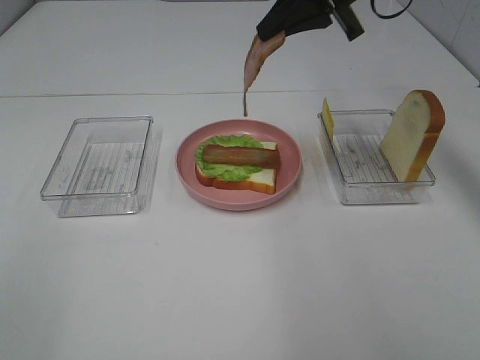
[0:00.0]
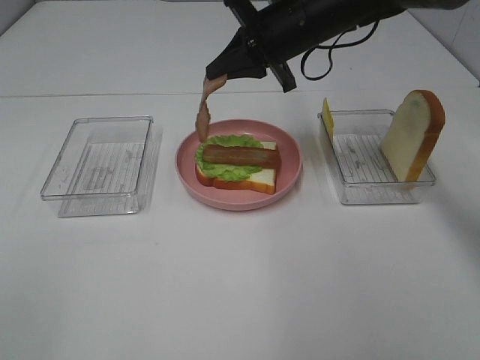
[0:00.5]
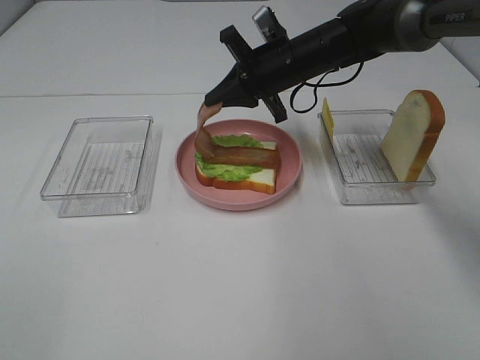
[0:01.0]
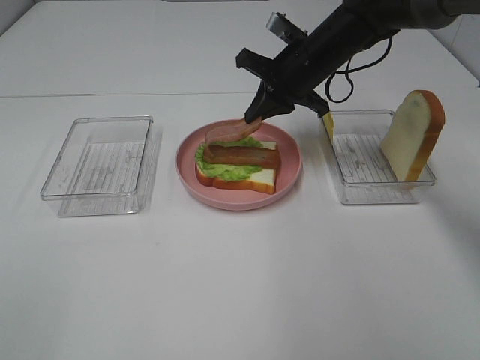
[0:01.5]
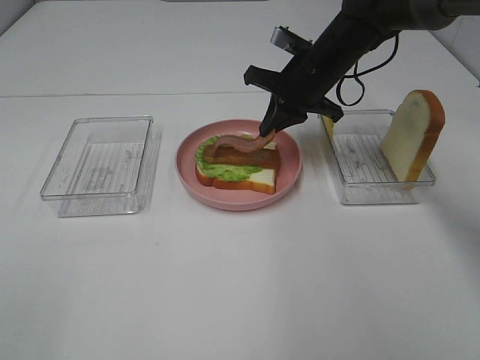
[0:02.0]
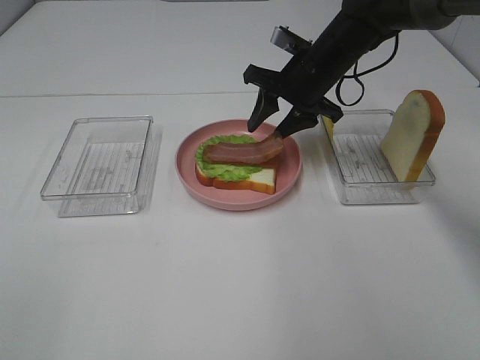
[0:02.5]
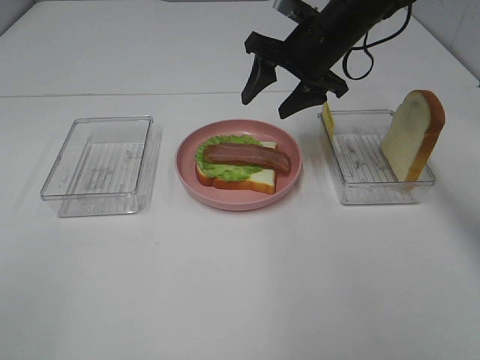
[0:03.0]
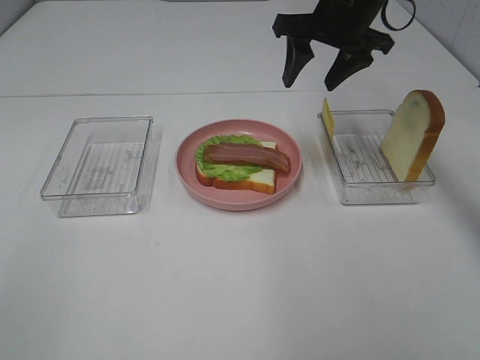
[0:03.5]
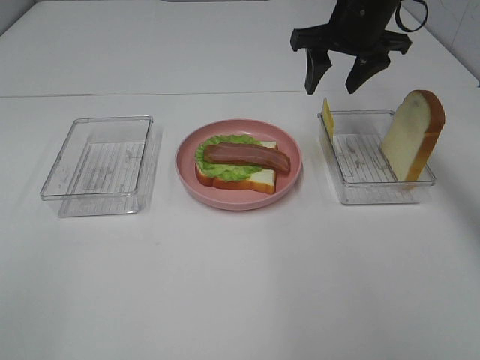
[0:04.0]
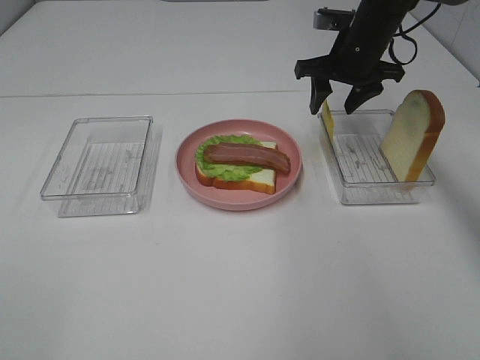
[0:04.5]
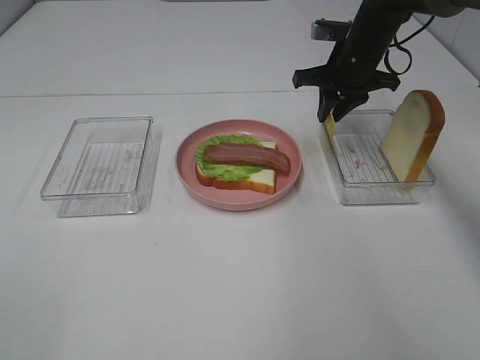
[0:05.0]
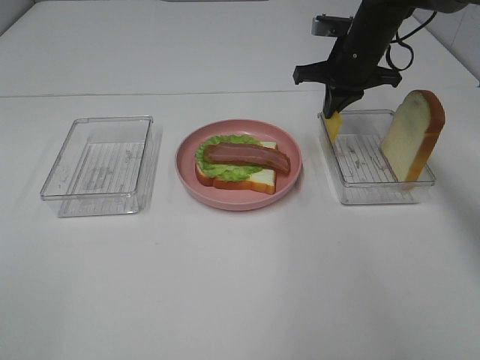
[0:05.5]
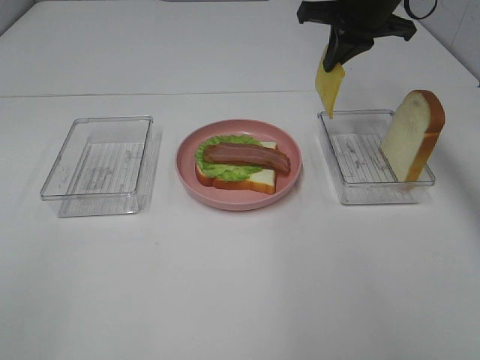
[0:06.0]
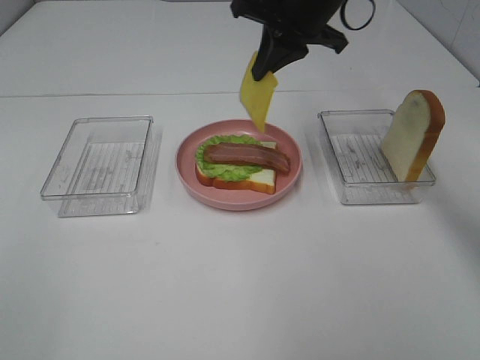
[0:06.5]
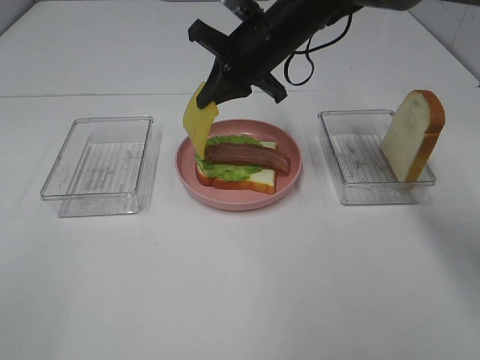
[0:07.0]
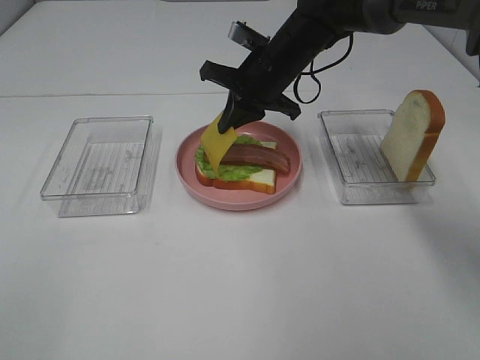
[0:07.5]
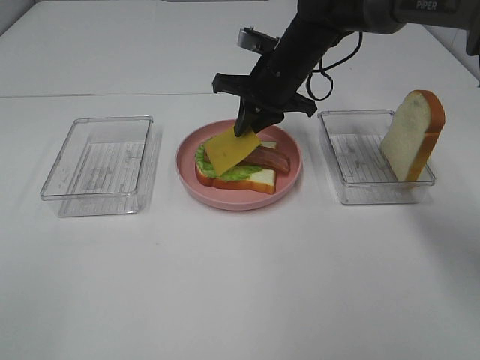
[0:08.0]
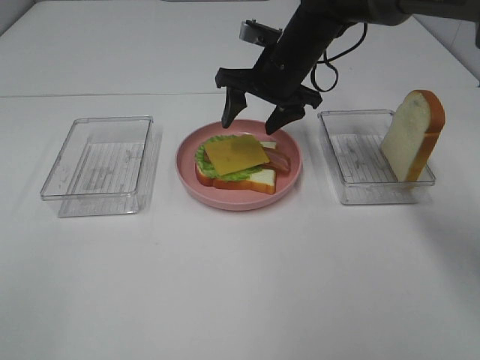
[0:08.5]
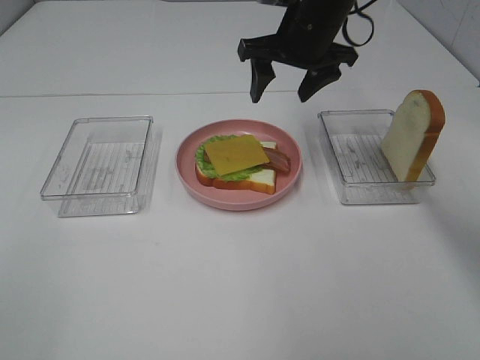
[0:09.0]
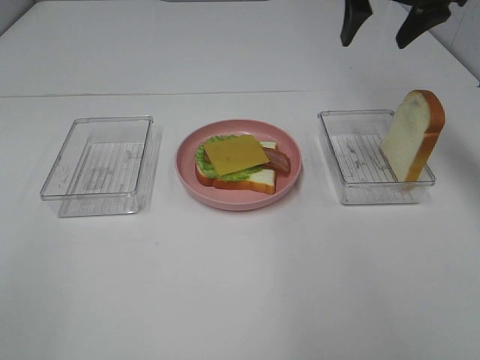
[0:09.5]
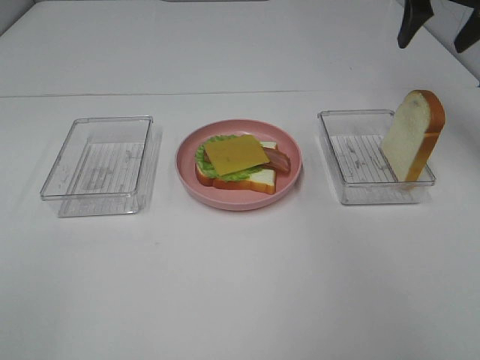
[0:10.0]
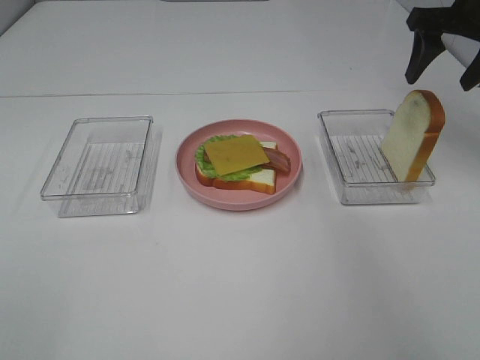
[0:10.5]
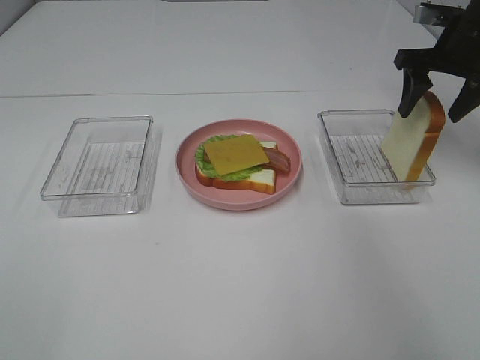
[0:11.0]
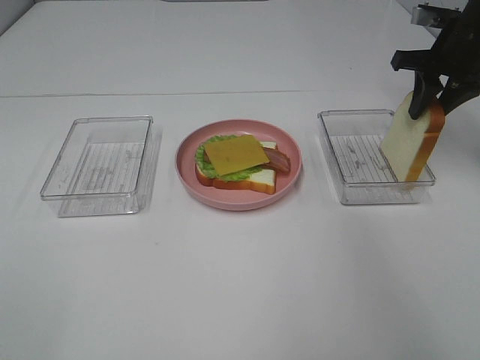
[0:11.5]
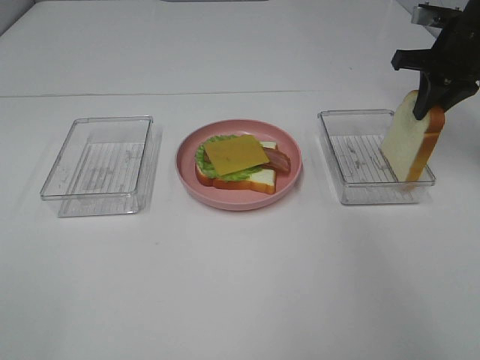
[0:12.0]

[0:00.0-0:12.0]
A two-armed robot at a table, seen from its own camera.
Task of the whole recording: Make sandwiches.
Step, 0:00.0 to 0:02.5: Right hand:place bacon on bacon.
Step, 0:03.0 to 0:05.5: Right hand:grab the cheese slice.
Step, 0:06.0 to 0:08.5: Right hand:place the cheese slice on top of the bacon.
Step, 0:09.0 to 0:11.5: Right hand:grab the bread slice.
0:00.0 to 0:02.0: The right gripper travels downward by about 15 cm.
0:02.0 to 0:04.0: The right gripper moves upward, roughly 5 cm, and opens up.
0:04.0 to 0:06.0: The right gripper closes.
0:06.0 to 0:08.0: The right gripper heads downward and to the left, covering approximately 15 cm.
0:08.0 to 0:10.0: The right gripper is displaced to the right and upward by roughly 25 cm, and opens its fingers.
0:10.0 to 0:12.0: The right gripper is displaced downward by roughly 10 cm, and closes.

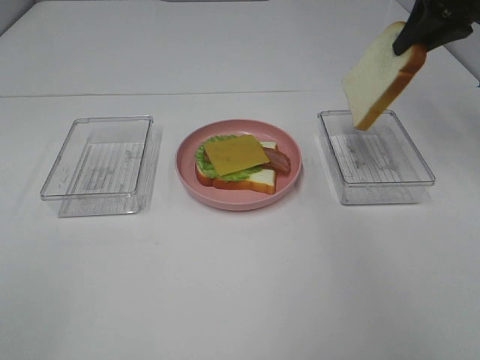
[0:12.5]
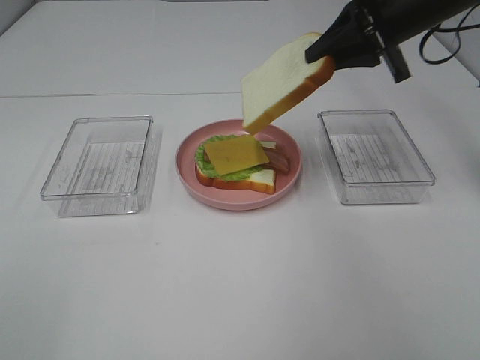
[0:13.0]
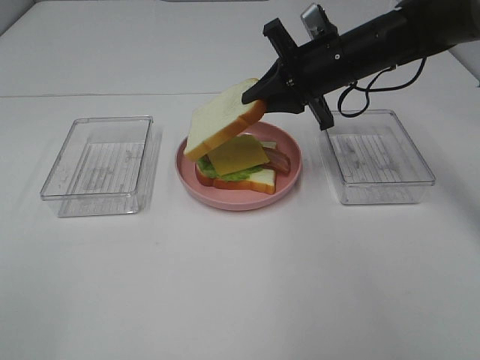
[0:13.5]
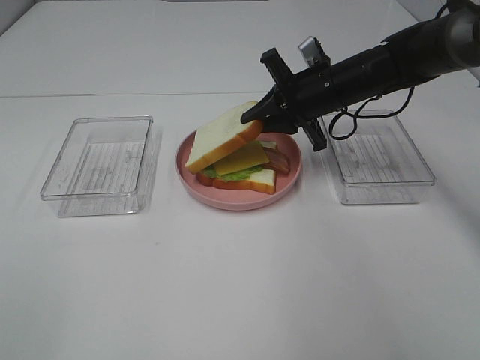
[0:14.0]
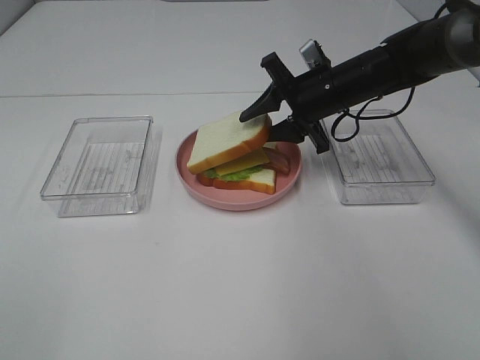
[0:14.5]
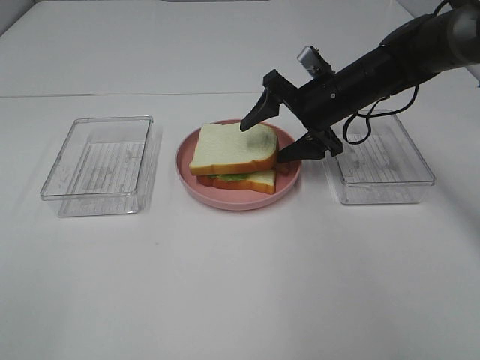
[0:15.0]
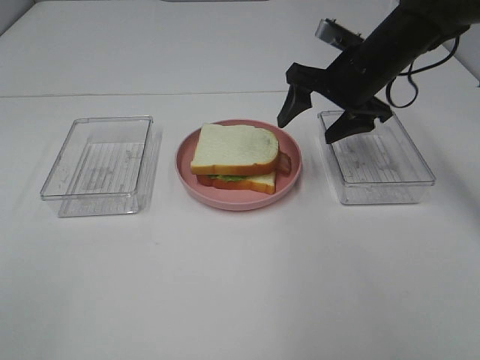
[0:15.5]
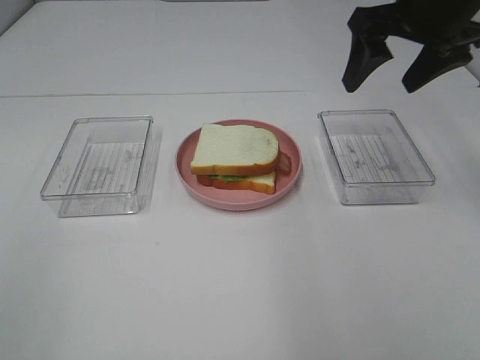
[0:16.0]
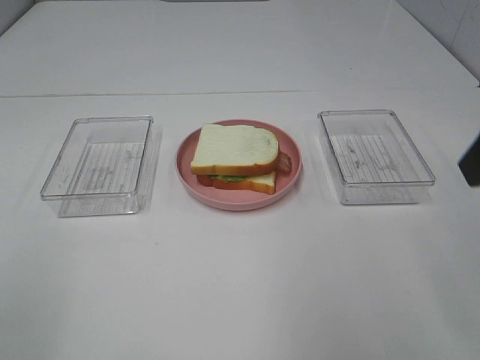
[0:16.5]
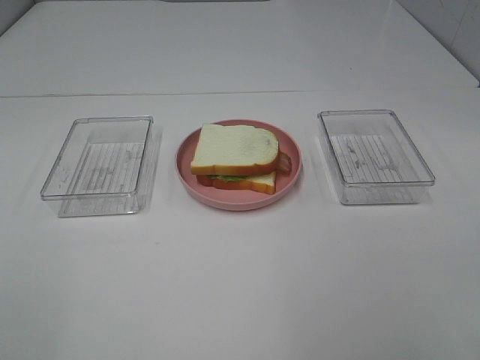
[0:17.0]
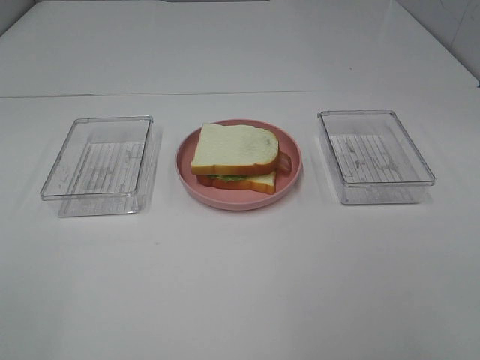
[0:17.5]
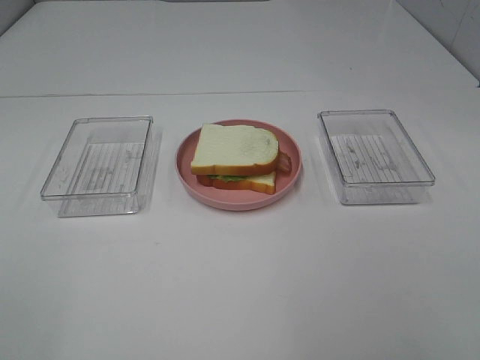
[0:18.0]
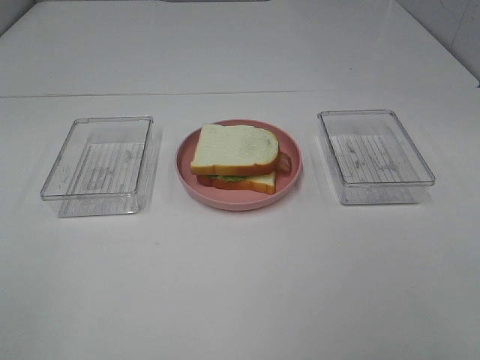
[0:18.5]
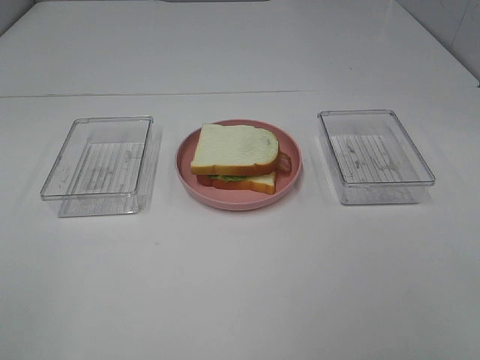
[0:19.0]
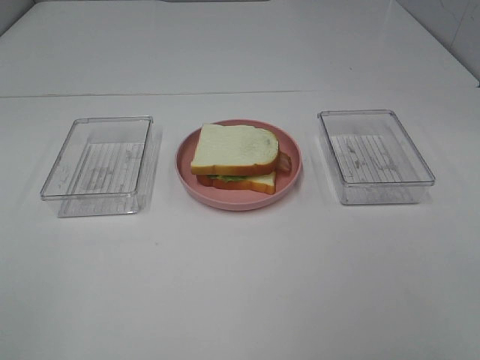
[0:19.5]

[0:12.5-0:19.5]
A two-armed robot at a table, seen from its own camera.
Task of the whole recording: Make sandwiches.
Step, 0:12.5 to 0:15.0: Right hand:place the bread slice on the cheese slice.
0:12.5 to 0:14.5: The right gripper moves downward and to the left, some 20 cm, and opens.
0:14.5 to 0:16.0: The right gripper travels upward and backward by roughly 20 cm, and opens its fingers.
0:16.0 to 0:17.5: The right gripper goes about 35 cm backward.

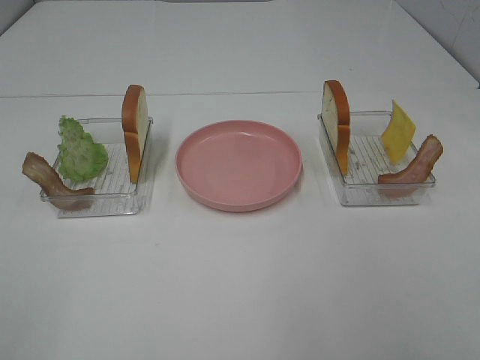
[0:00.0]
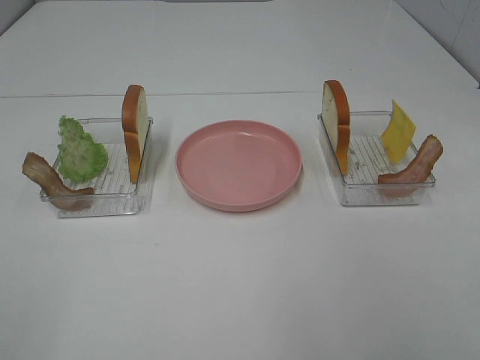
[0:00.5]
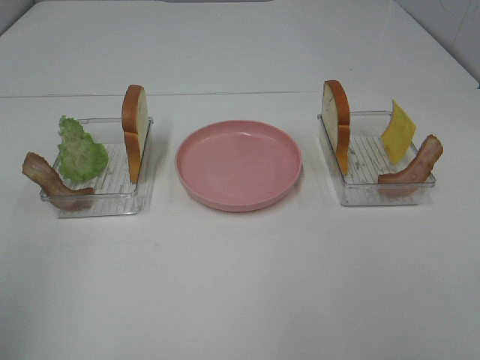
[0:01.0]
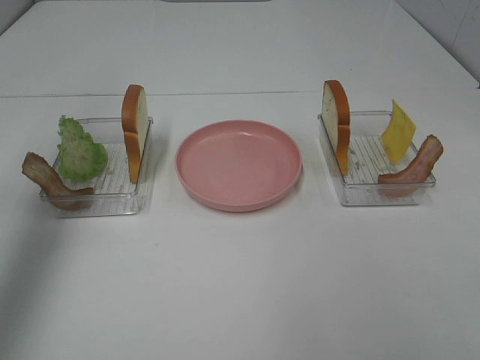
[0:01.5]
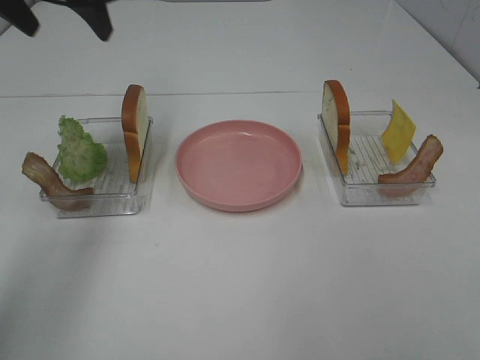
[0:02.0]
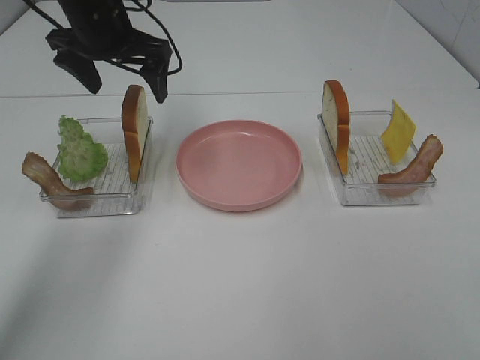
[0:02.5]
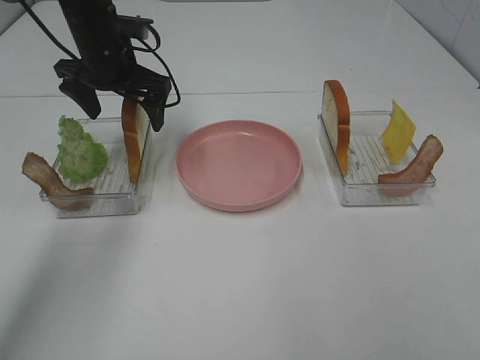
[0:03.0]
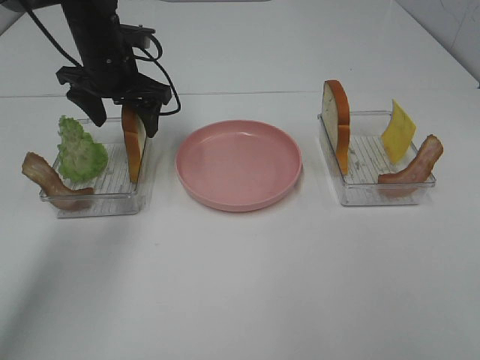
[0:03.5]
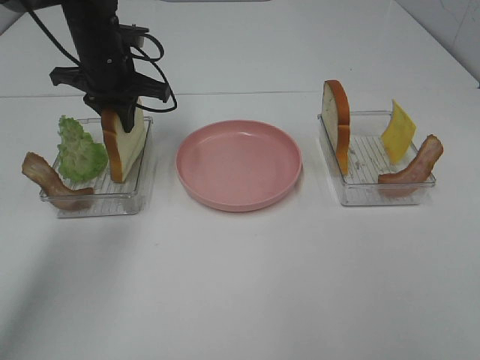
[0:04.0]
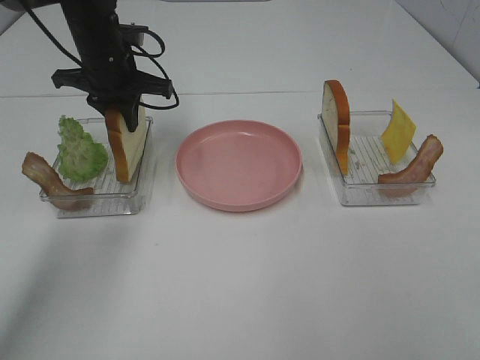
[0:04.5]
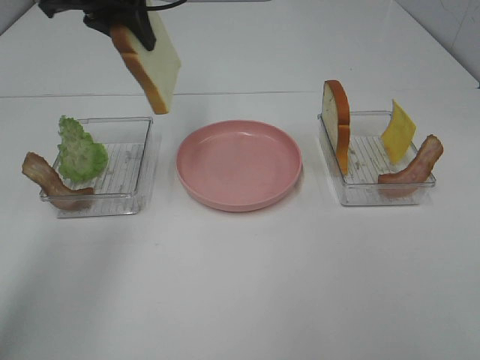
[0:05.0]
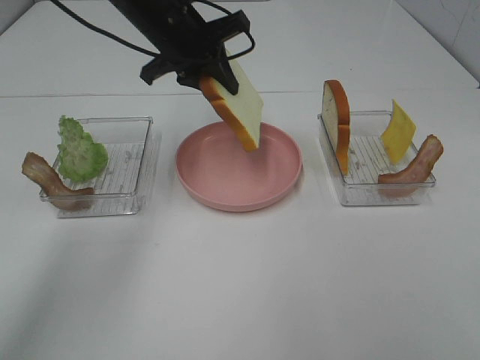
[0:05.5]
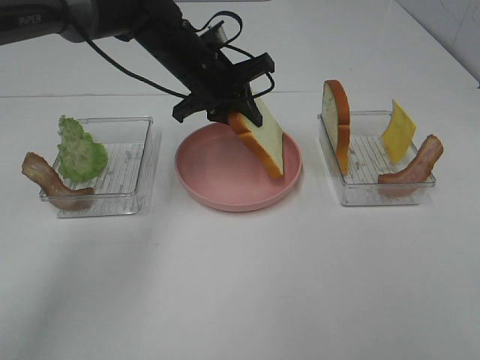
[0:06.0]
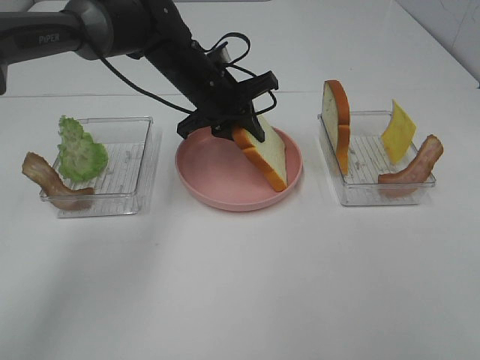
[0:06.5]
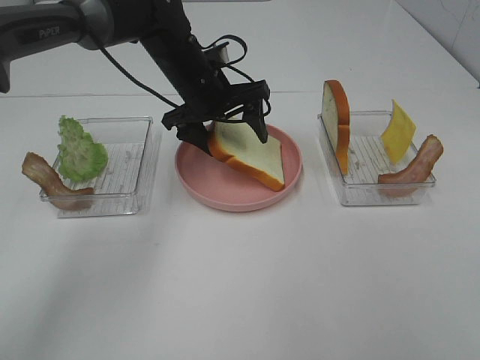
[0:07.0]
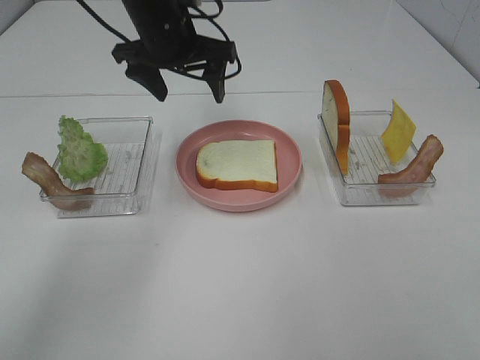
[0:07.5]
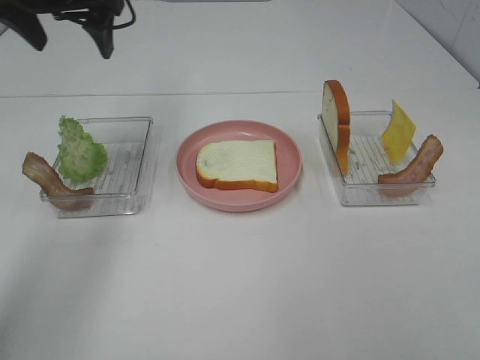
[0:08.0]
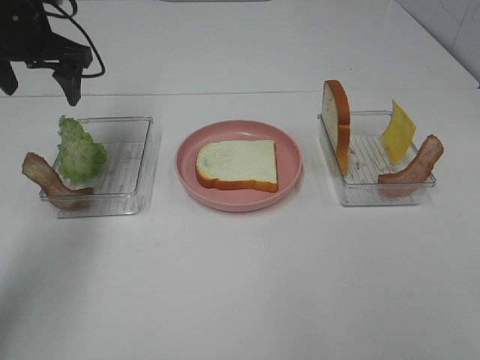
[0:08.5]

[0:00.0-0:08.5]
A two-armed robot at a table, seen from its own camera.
Task of the whole recording: Make sandwiches.
Step, 0:00.0 to 0:03.5: Left hand:grab the bread slice.
Step, 0:04.0 to 0:07.0: Left hand:place the bread slice on the plate.
0:00.0 to 0:02.0: The left gripper is displaced forward by about 40 cm.
0:02.0 to 0:04.0: The left gripper shifts about 15 cm downward, and closes.
0:04.0 to 0:06.5: The left gripper shifts approximately 10 cm to the right, and travels upward and back again, about 10 cm each way.
0:06.5 to 0:08.5: The left gripper travels to the left and upward by roughly 20 cm, and opens its fingers.
